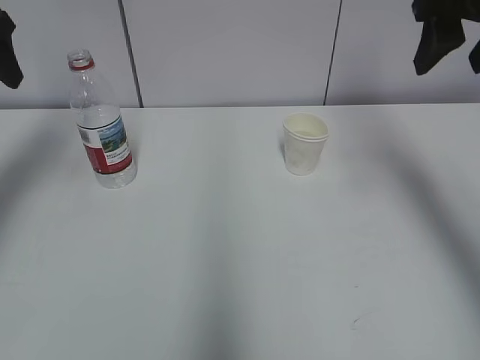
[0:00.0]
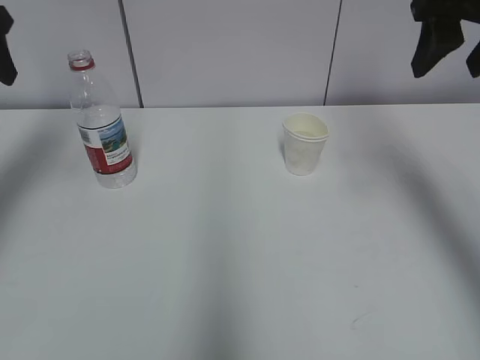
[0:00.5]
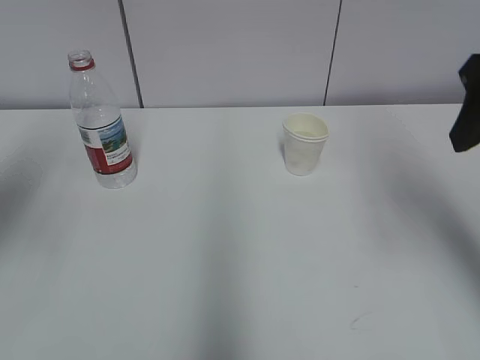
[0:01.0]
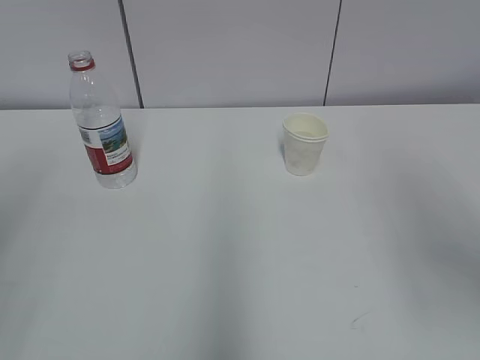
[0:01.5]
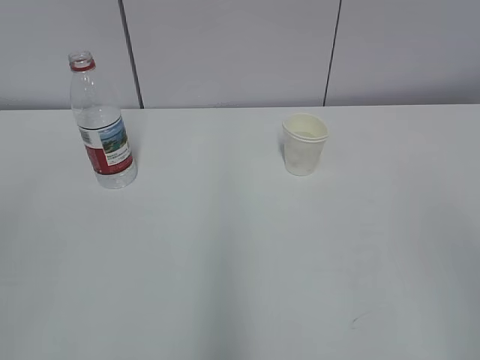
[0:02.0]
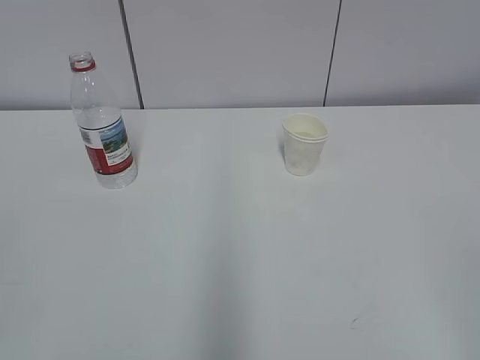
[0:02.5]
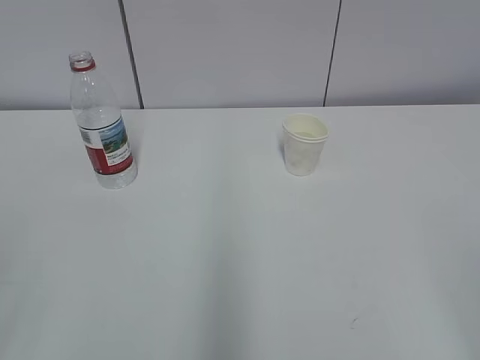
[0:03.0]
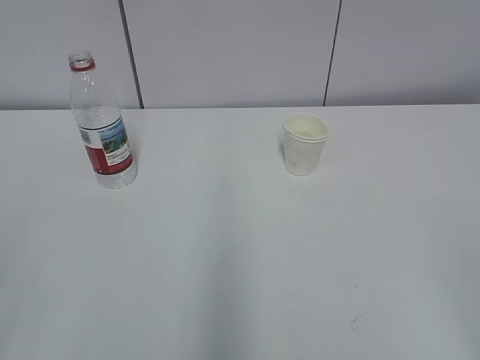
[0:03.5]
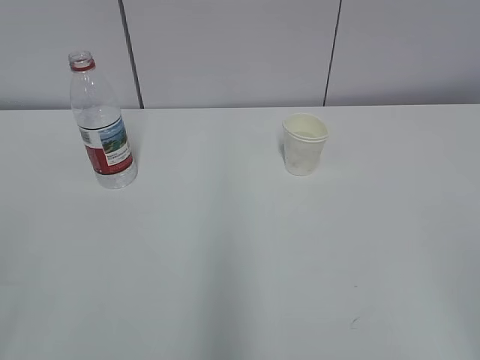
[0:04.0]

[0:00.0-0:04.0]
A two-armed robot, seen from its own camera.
0:00.0 to 0:02.0: Both grippers move backward, some 30 cm. The left gripper closes its fingers.
